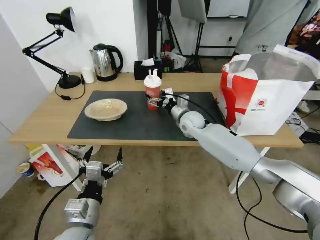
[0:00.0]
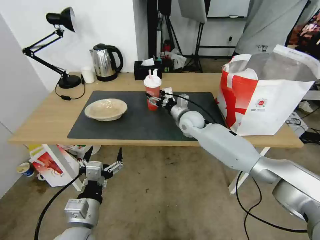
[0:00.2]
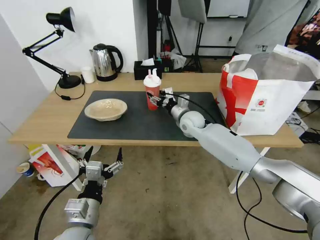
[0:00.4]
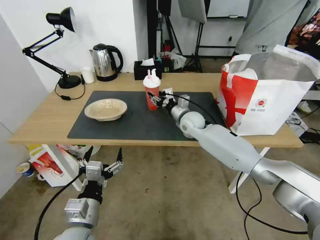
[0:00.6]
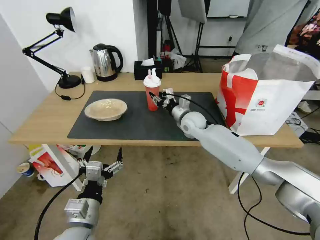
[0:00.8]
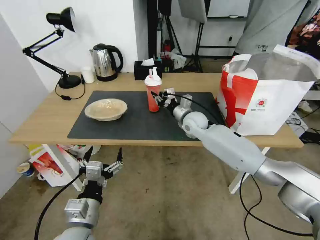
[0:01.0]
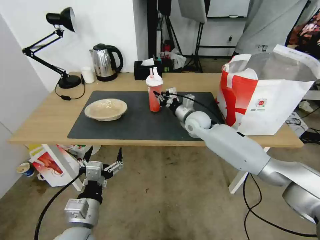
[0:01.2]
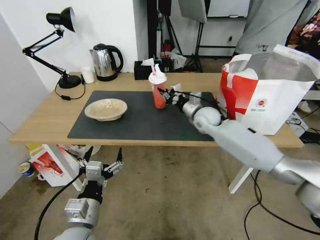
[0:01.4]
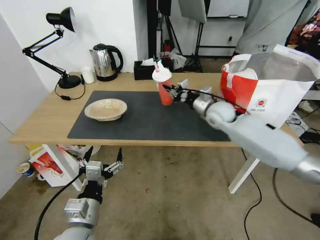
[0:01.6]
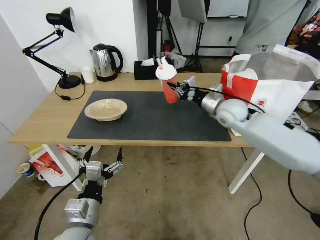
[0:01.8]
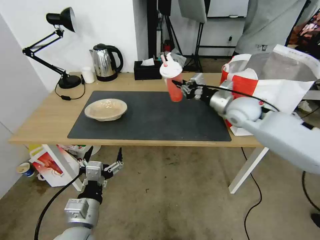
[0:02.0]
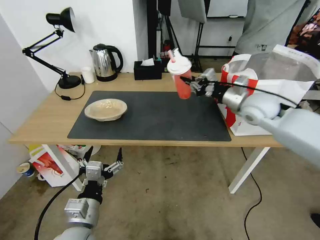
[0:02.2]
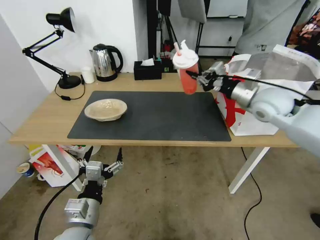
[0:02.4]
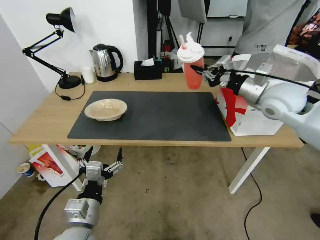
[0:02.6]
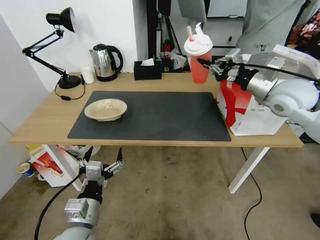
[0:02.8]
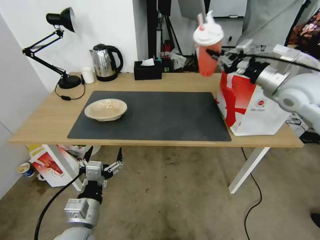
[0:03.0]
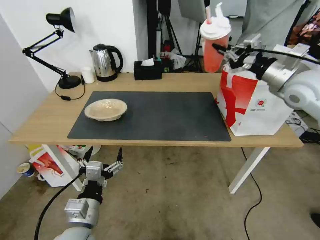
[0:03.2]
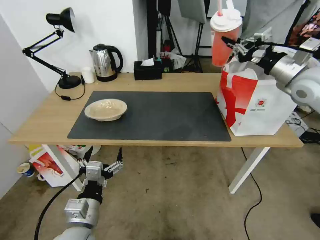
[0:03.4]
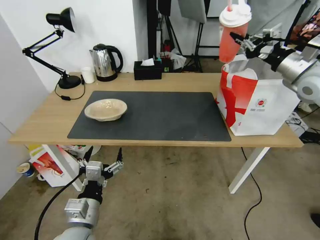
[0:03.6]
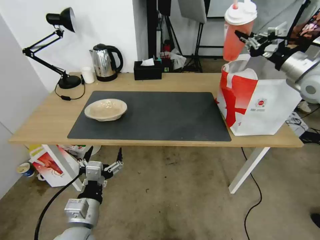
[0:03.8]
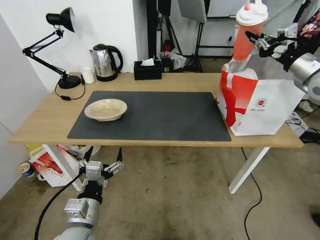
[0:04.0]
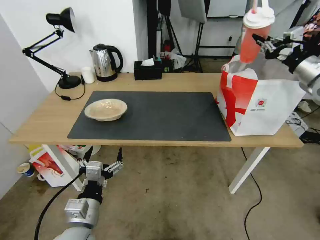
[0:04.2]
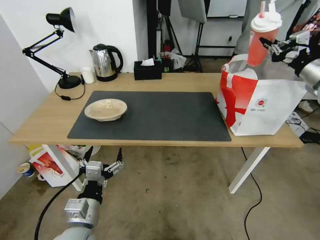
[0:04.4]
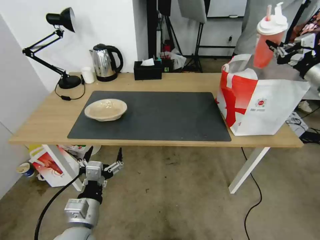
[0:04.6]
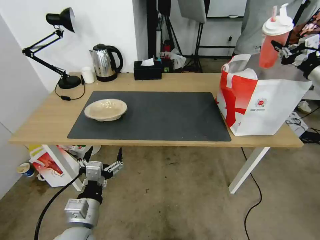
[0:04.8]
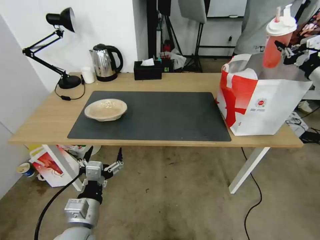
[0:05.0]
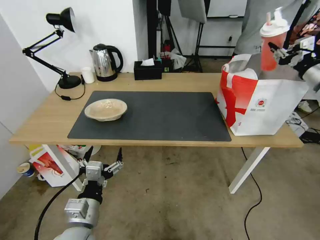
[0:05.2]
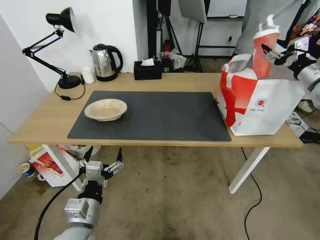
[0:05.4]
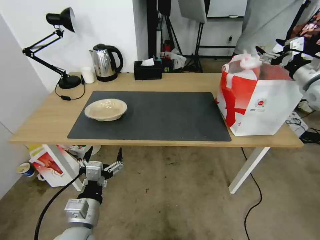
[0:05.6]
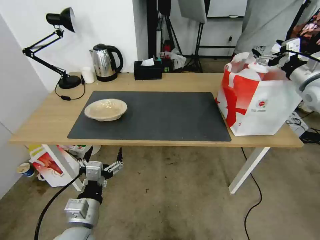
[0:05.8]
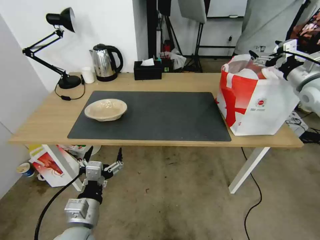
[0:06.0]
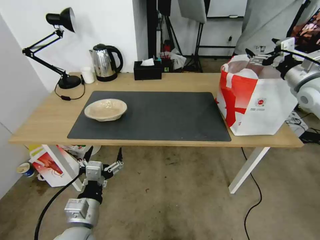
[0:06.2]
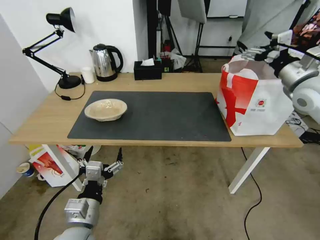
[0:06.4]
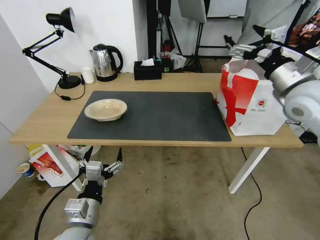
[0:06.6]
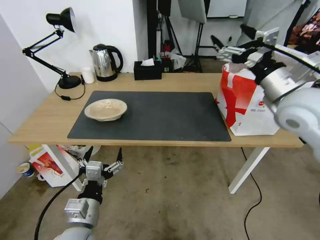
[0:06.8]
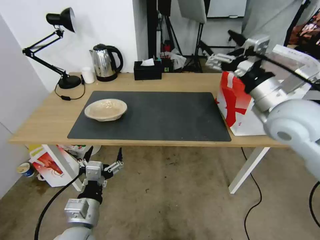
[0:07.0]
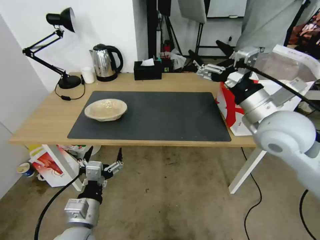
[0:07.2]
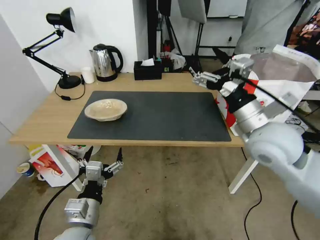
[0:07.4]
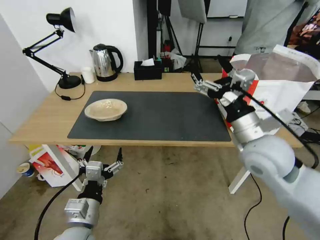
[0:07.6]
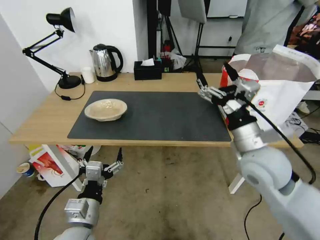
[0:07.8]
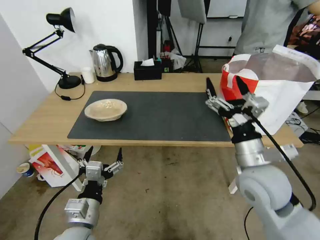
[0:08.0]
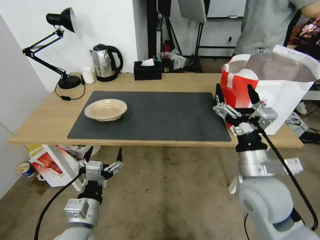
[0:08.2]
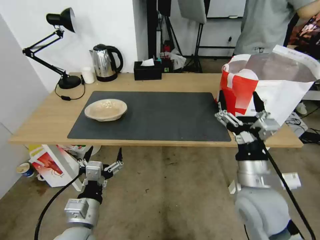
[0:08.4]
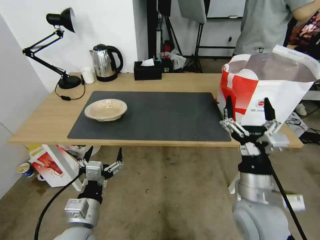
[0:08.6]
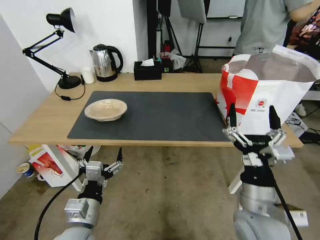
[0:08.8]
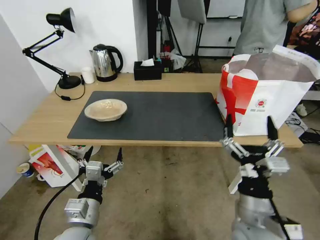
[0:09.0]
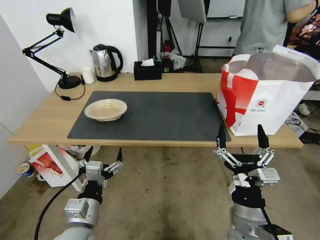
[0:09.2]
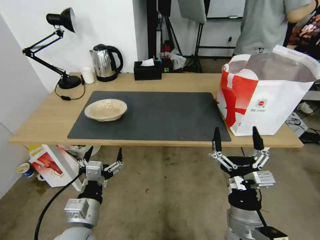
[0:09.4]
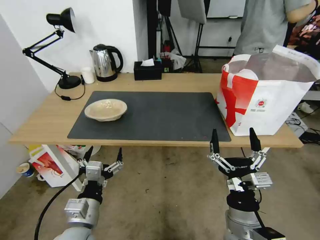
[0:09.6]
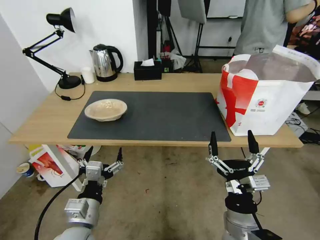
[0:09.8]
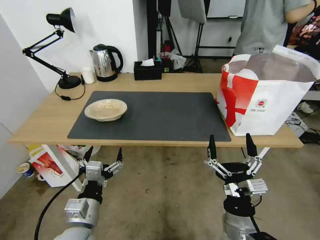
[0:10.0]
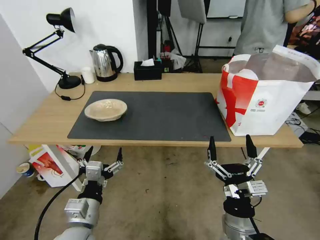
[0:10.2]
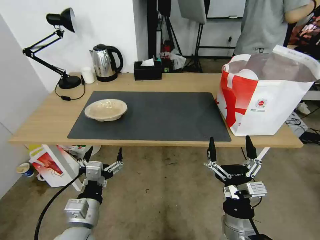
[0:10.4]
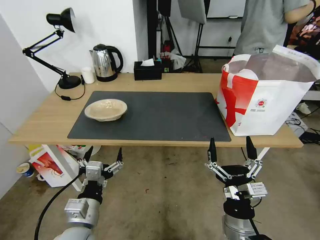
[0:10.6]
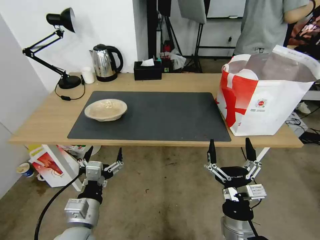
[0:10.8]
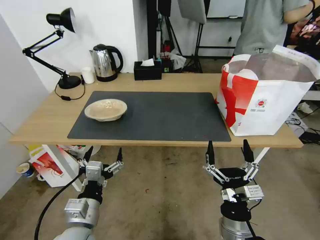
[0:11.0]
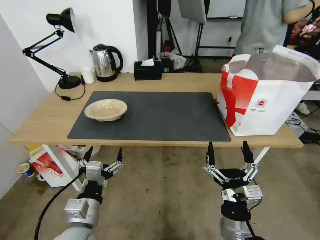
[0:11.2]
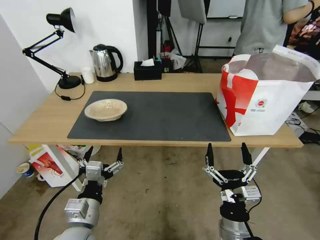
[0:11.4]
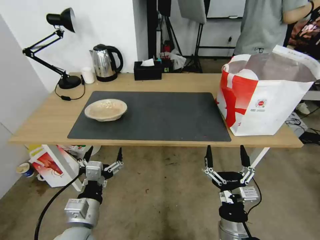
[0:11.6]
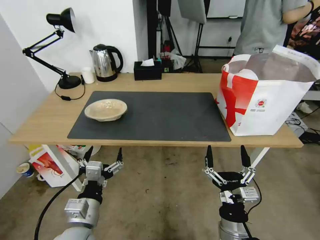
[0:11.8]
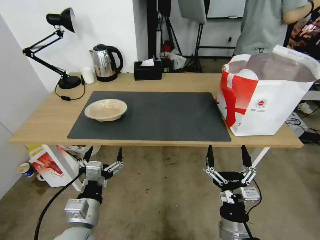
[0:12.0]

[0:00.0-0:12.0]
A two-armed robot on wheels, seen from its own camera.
Task of the whole recording: Pick up the trash from the table and place it into the takeout bag.
0:00.0 to 0:01.6: The right gripper shifts some 10 cm to the right and upward, and closes its fingers.
0:01.6 to 0:03.0: The right gripper shifts roughly 20 cm upward, to the right and backward.
0:03.0 to 0:04.4: The right gripper shifts approximately 15 cm to the right.
0:04.4 to 0:06.0: The right gripper opens up.
0:06.0 to 0:07.6: The right gripper goes approximately 30 cm to the left and backward.
0:07.6 to 0:09.0: The right gripper moves backward and downward, roughly 20 cm.
0:09.0 to 0:10.4: The right gripper is displaced downward by approximately 5 cm.
0:10.4 to 0:12.0: The grippers move only a little.

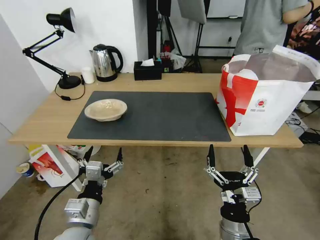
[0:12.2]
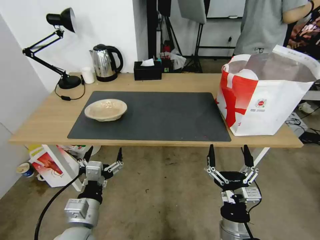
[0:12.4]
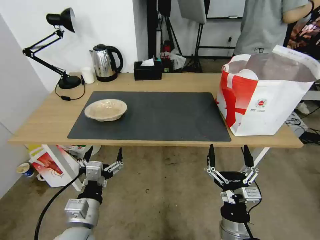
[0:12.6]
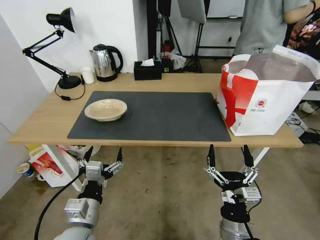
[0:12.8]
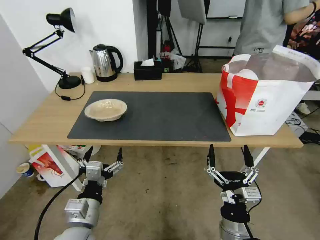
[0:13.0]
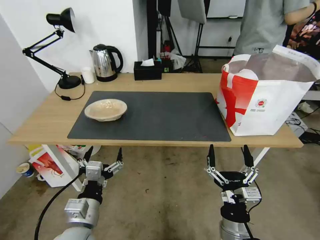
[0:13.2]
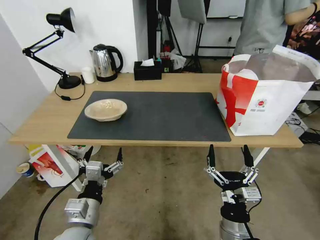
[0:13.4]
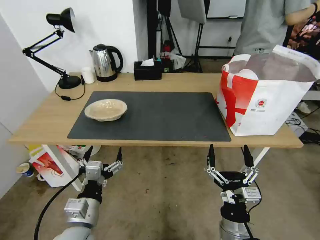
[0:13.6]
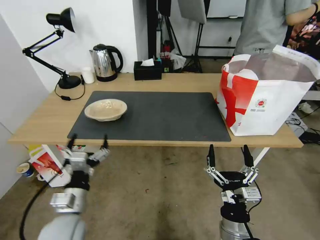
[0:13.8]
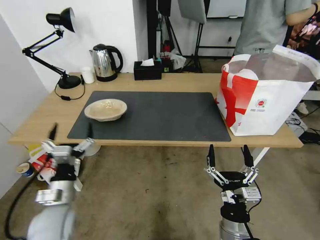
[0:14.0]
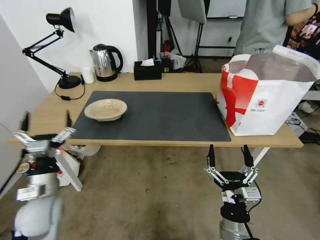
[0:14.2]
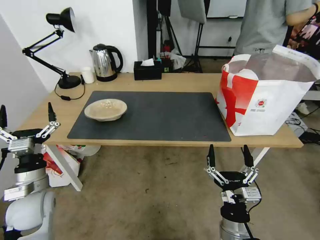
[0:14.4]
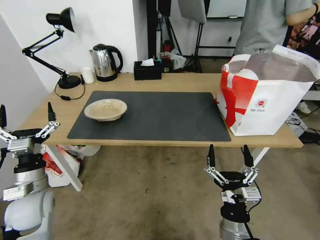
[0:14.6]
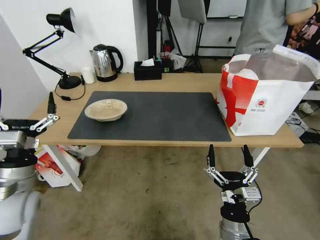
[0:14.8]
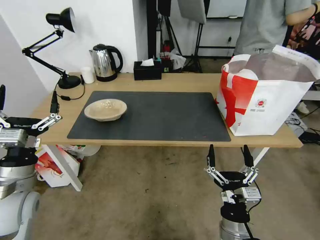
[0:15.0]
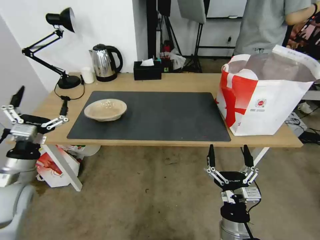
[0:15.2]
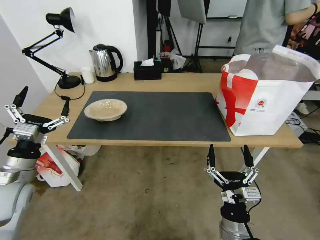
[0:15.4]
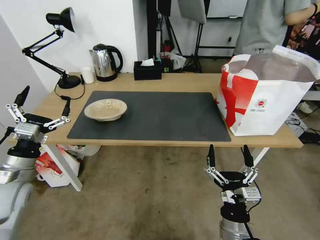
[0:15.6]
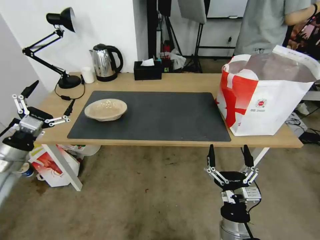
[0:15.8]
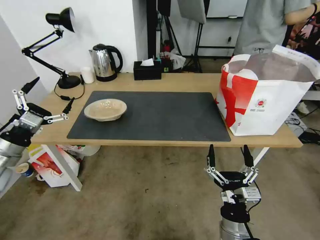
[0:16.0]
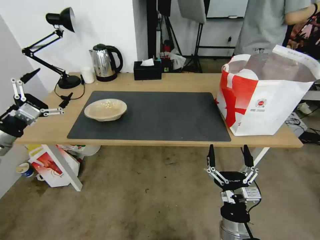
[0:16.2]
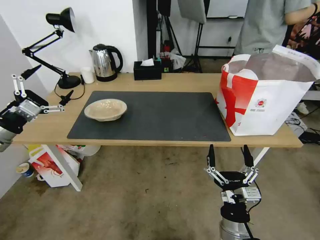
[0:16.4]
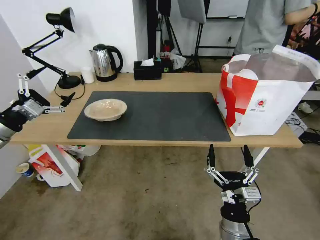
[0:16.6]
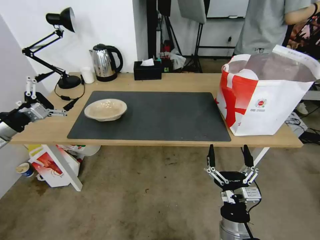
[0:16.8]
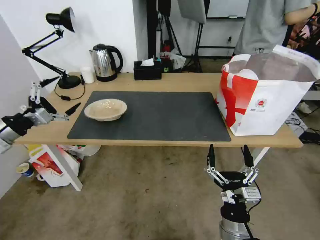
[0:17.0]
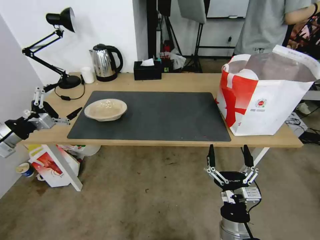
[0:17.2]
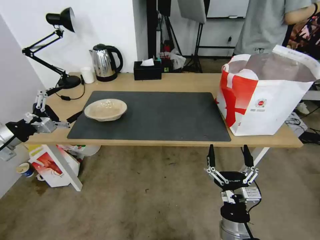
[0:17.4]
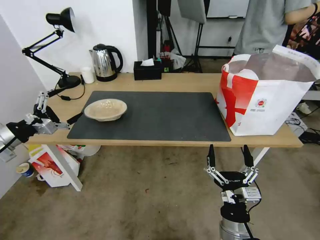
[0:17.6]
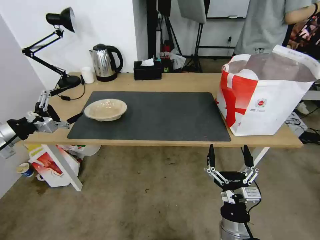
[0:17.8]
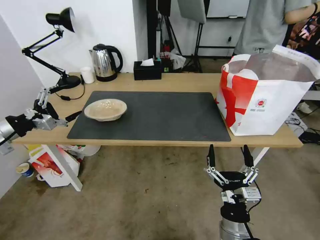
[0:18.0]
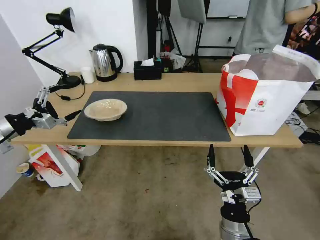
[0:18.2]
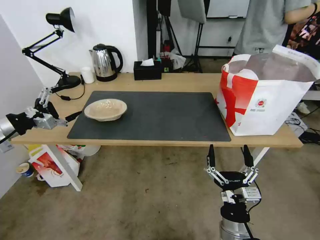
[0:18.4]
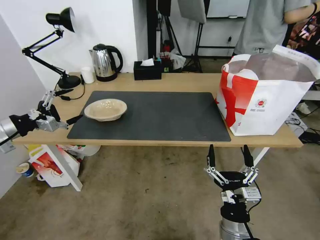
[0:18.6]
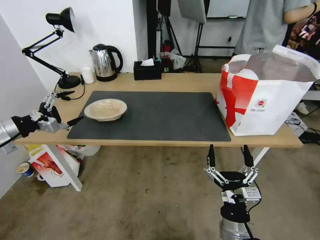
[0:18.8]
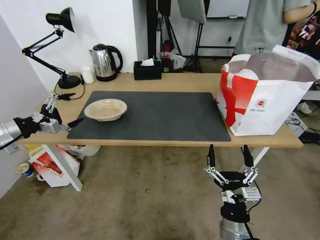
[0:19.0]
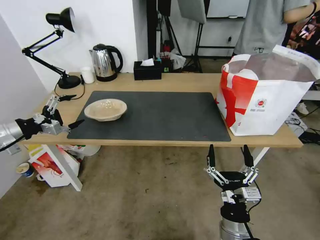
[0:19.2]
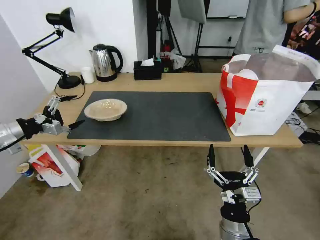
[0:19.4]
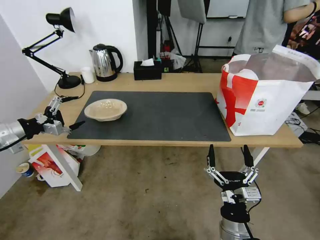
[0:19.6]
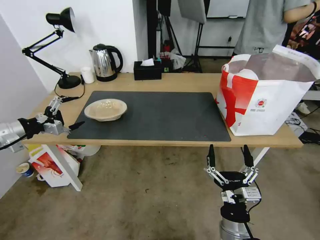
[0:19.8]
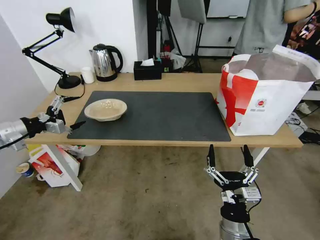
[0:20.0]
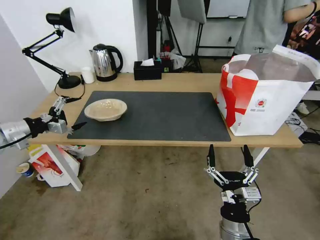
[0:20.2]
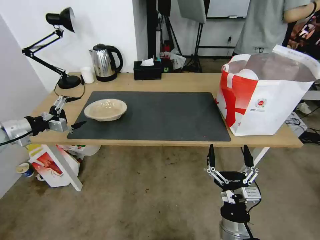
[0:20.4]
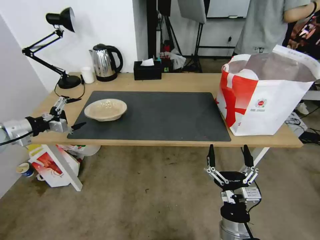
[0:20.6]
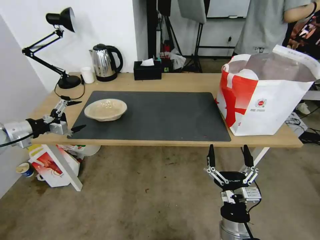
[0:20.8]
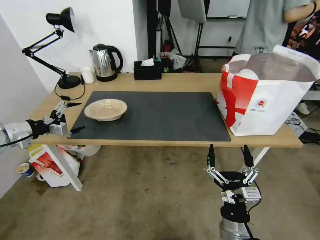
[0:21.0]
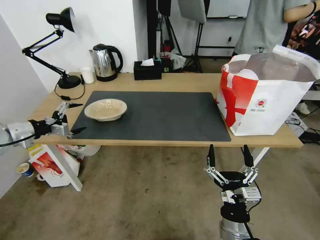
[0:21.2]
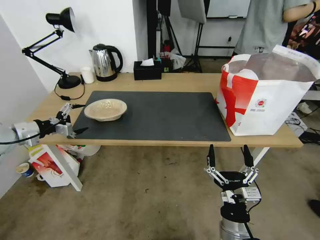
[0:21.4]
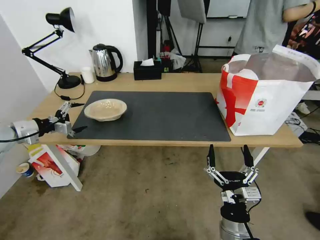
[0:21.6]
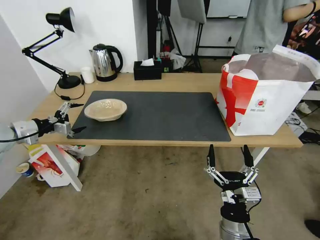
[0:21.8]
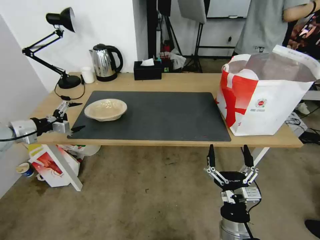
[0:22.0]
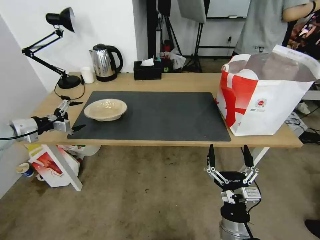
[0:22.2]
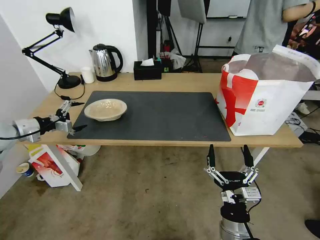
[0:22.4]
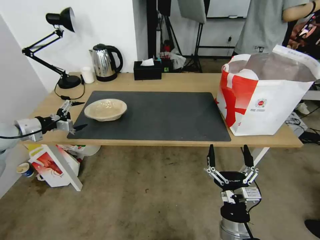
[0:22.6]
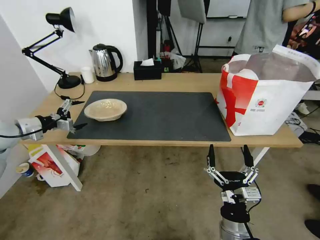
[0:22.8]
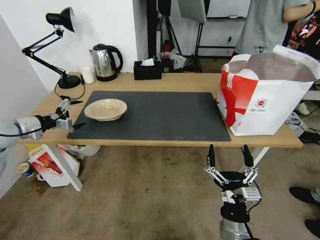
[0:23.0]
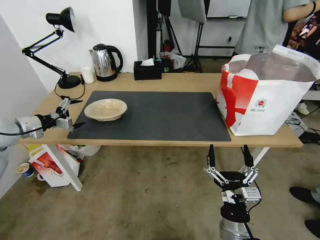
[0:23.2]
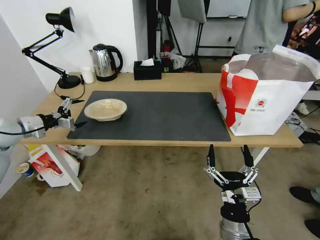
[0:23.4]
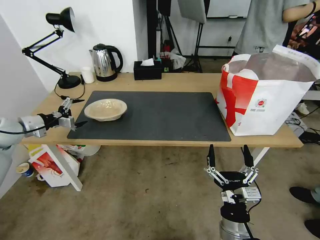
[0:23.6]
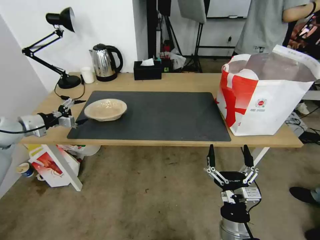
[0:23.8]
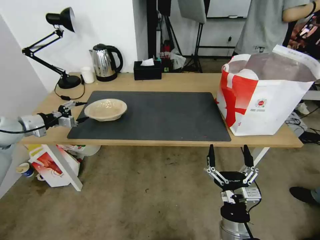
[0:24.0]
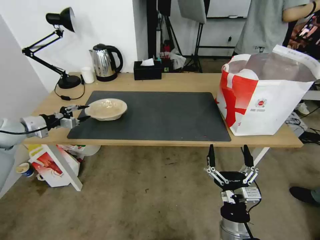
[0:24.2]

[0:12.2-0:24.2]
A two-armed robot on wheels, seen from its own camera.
Task of the whole recording: Pick up the trash from the table and place it into the takeout bag.
0:12.2 to 0:13.8: There are only small adjustments of the grippers.
0:13.8 to 0:15.2: The left gripper travels to the left, upward and forward by about 15 cm.
0:15.2 to 0:16.6: The left gripper shifts roughly 15 cm to the left, upward and forward.
0:18.2 to 0:21.2: There are only small adjustments of the grippers.
0:21.2 to 0:22.6: The grippers stay close to where they were, moving slightly.
0:22.6 to 0:24.2: The left gripper closes up.
